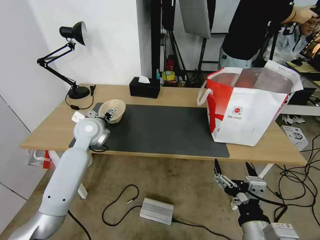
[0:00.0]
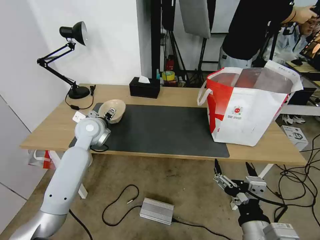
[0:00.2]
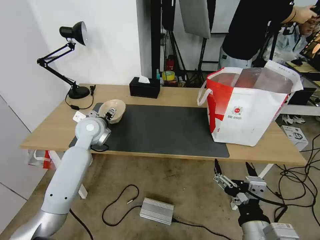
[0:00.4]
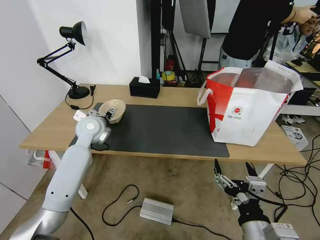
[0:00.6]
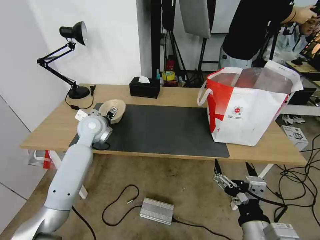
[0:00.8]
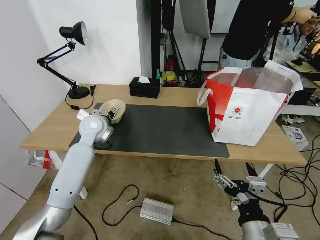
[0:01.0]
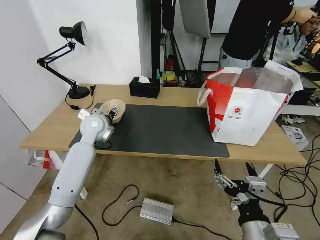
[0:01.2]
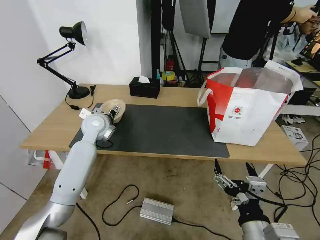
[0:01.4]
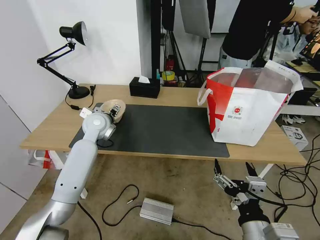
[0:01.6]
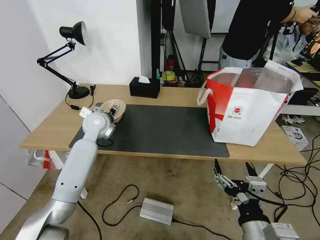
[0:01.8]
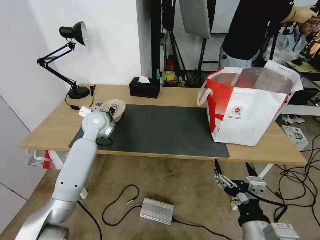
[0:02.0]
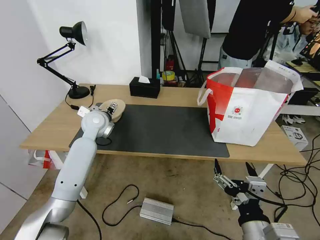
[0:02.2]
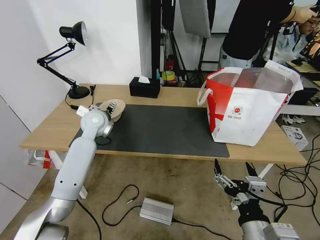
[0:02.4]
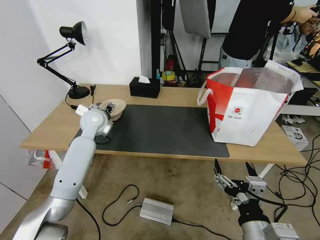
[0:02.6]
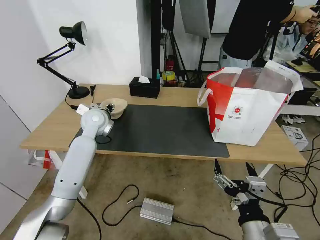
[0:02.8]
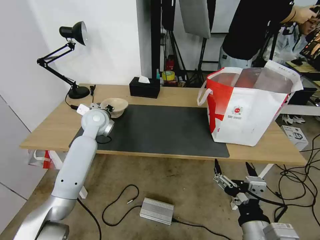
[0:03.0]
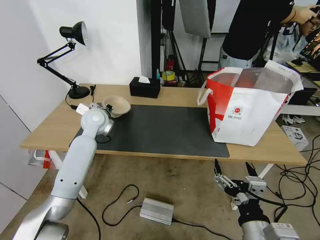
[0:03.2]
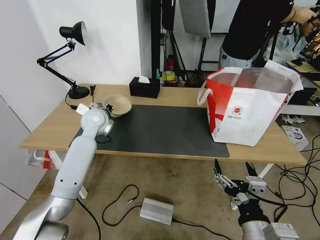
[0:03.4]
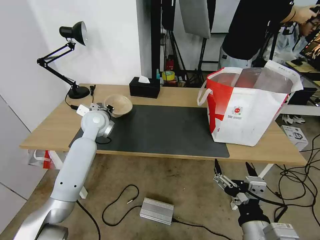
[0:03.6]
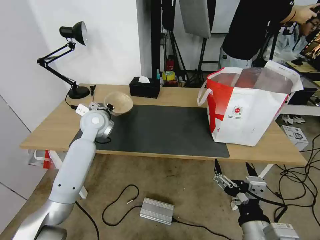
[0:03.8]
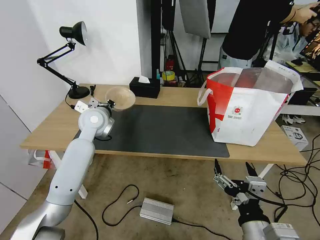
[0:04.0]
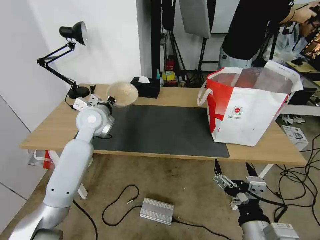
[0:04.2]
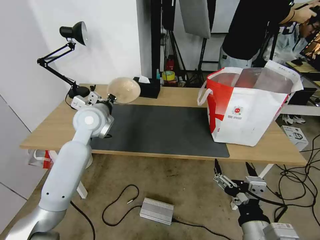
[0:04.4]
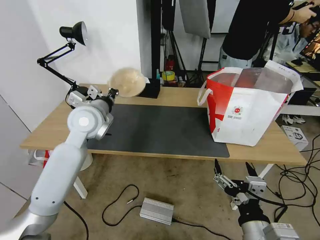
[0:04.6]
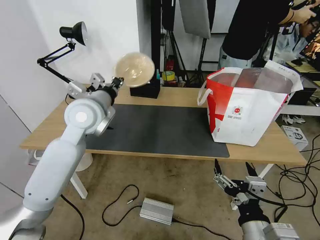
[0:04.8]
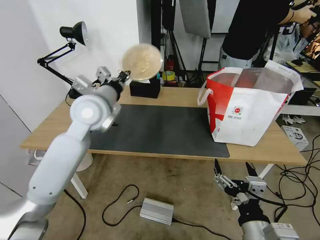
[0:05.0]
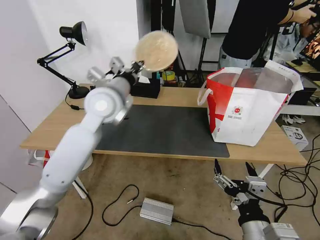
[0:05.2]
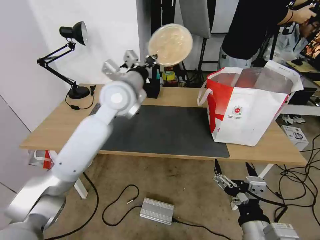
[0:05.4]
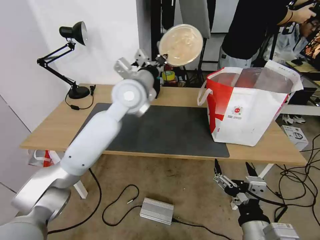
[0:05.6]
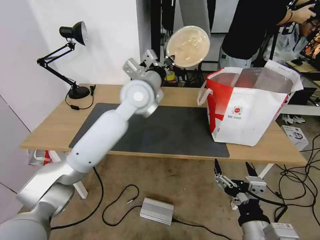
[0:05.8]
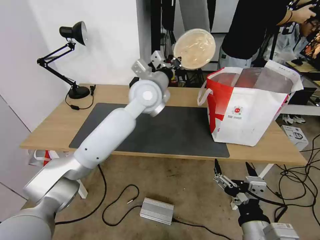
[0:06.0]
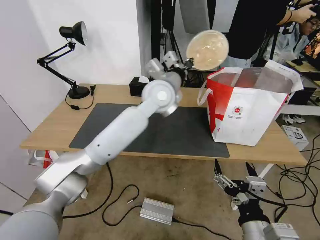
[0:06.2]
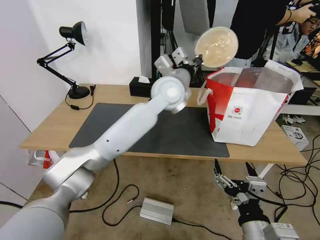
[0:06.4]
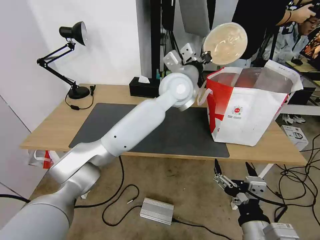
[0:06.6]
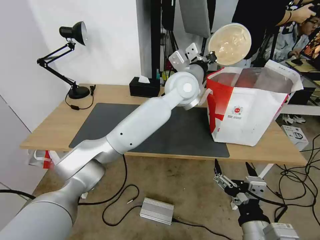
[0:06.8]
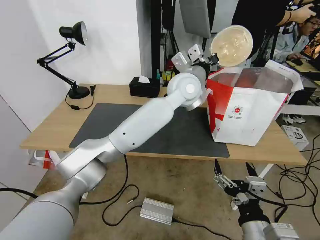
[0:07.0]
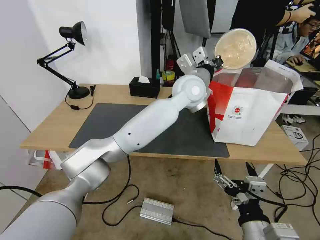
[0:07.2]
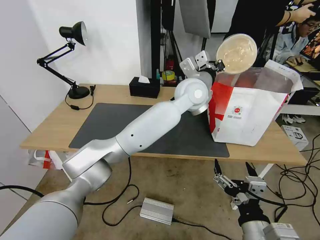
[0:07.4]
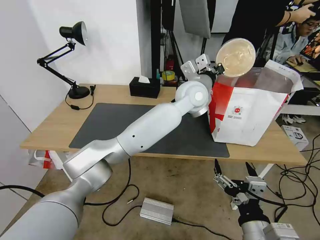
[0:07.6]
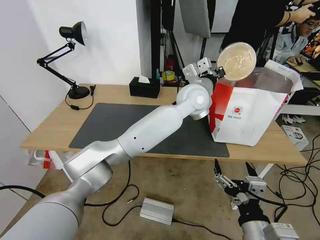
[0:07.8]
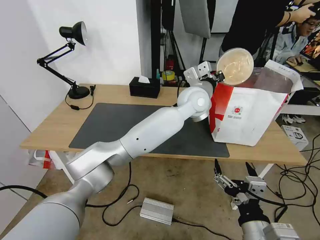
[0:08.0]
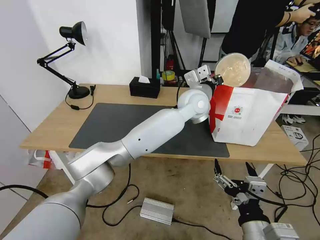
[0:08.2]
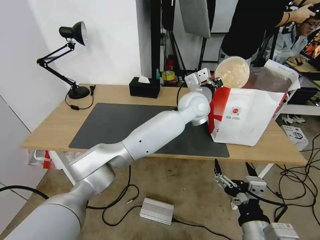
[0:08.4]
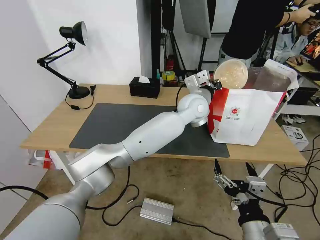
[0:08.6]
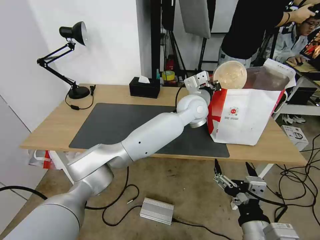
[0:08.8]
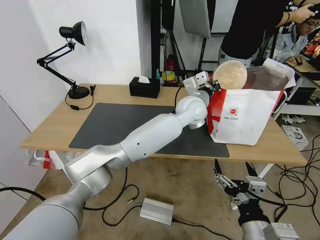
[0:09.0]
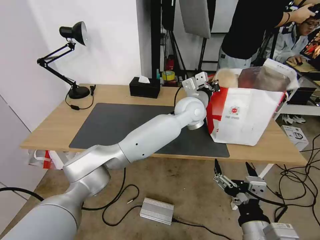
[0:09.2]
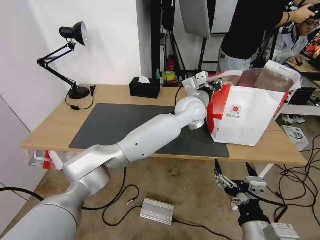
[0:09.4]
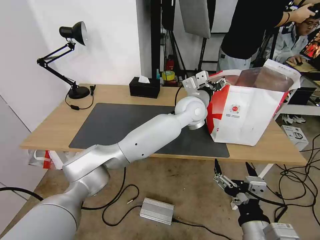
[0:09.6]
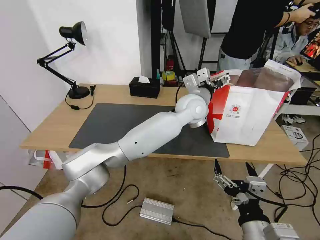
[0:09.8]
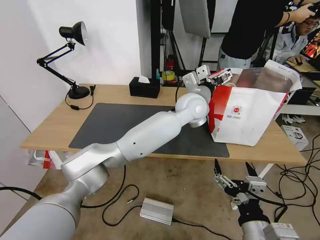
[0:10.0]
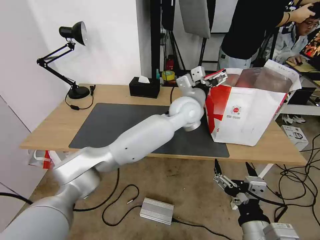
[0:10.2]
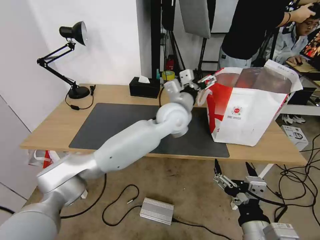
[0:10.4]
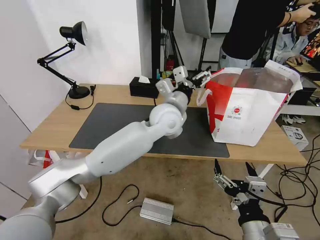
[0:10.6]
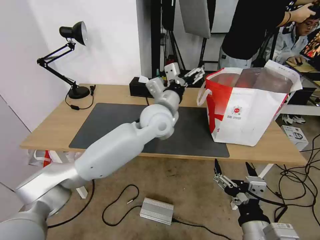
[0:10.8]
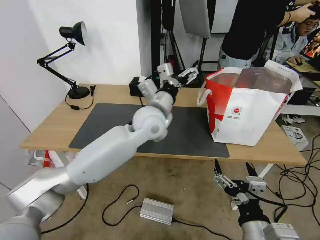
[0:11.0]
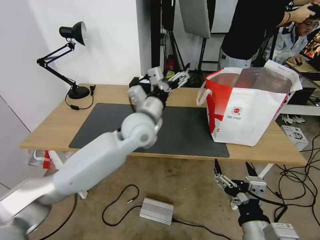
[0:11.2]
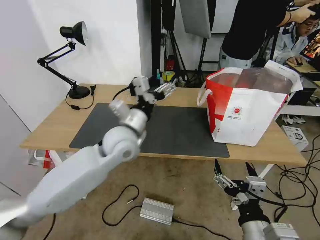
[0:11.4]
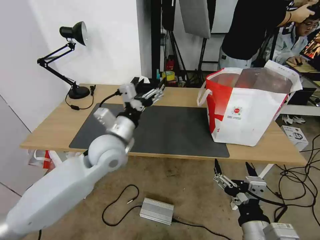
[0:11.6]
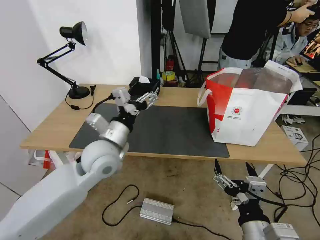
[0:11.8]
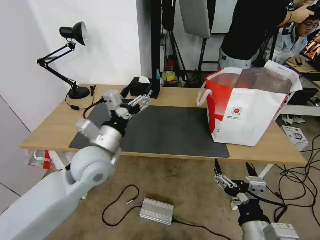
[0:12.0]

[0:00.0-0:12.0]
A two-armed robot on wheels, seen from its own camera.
Task of the whole recording: Pick up the trash from the table and place it into the takeout bag.
0:00.0 to 0:01.6: The grippers move only a little.
0:01.6 to 0:03.0: The left gripper closes.
0:03.0 to 0:04.4: The left gripper shifts approximately 10 cm backward and upward.
0:04.4 to 0:06.0: The left gripper is displaced to the right by approximately 15 cm.
0:06.0 to 0:07.6: The left gripper travels to the right by about 15 cm.
0:07.6 to 0:09.0: The left gripper goes approximately 5 cm downward.
0:09.0 to 0:10.4: The left gripper moves to the left, approximately 5 cm, and opens up.
0:10.4 to 0:12.0: The left gripper heads to the left and backward, covering about 25 cm.

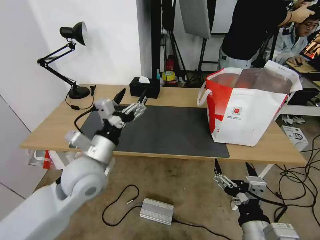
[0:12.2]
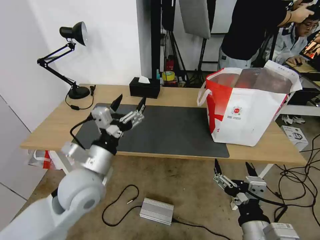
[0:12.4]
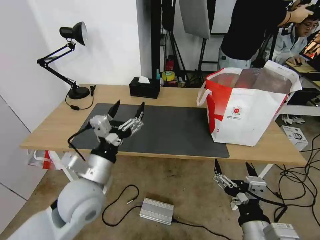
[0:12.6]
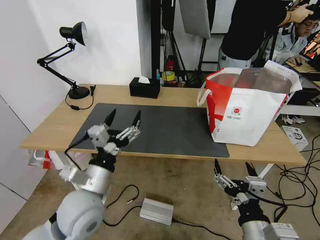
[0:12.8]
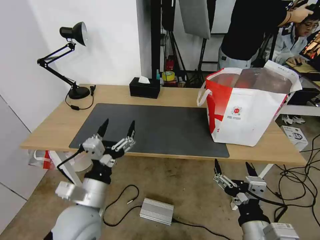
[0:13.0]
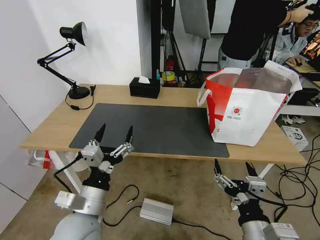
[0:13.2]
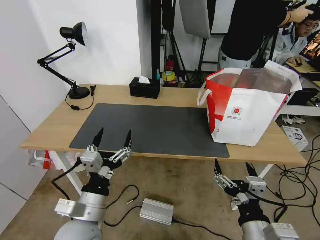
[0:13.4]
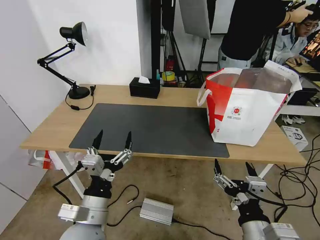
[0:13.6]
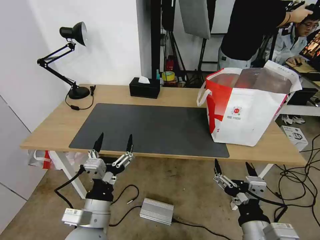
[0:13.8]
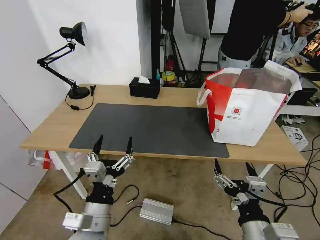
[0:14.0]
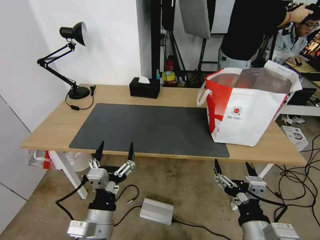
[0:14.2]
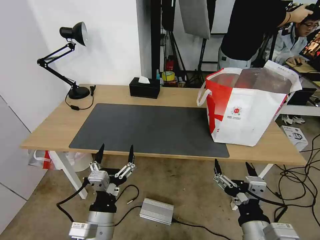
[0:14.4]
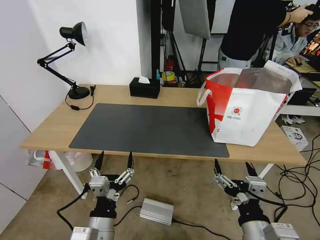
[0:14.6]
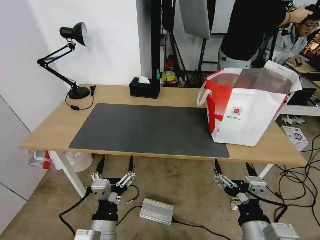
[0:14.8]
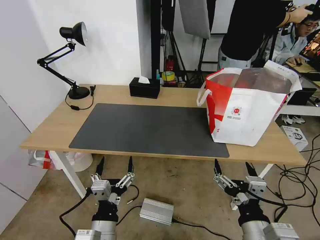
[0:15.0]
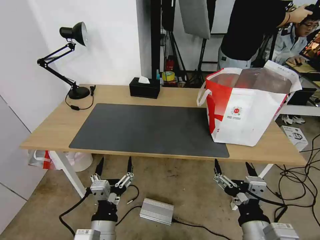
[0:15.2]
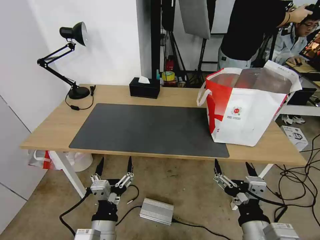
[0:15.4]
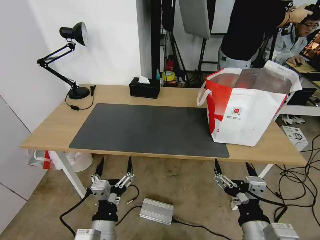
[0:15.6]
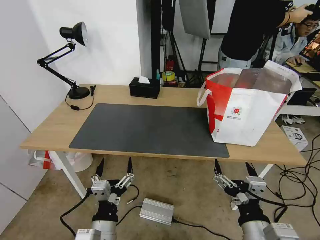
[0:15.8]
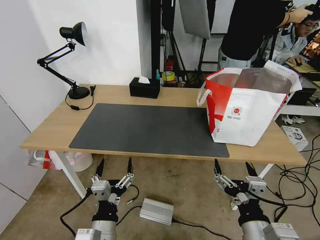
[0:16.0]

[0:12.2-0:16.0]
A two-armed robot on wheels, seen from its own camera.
Task of the whole recording: Pick up the trash from the table and place it into the takeout bag.
0:12.2 to 0:13.4: The left gripper moves backward and downward, approximately 15 cm.
0:13.4 to 0:14.8: The left gripper goes roughly 5 cm downward.
0:14.8 to 0:16.0: The two grippers keep their place.

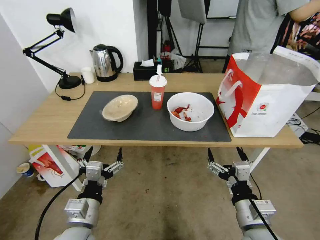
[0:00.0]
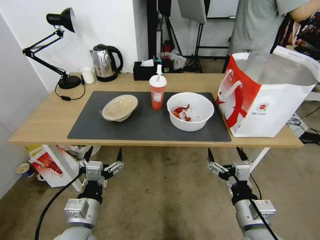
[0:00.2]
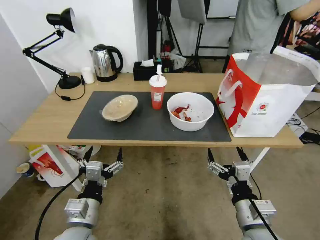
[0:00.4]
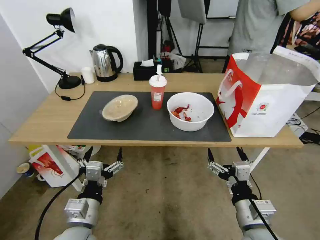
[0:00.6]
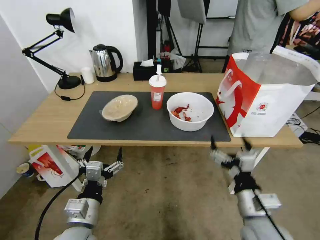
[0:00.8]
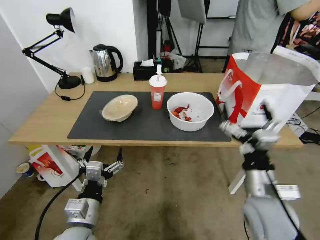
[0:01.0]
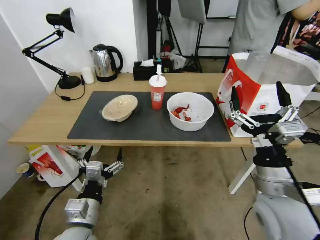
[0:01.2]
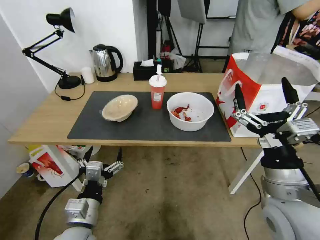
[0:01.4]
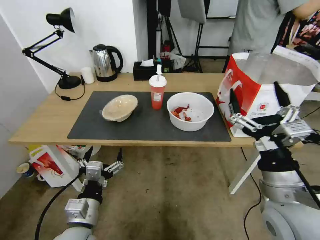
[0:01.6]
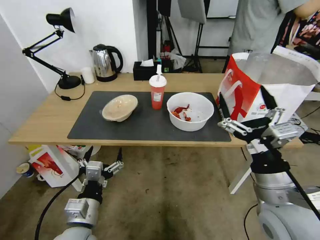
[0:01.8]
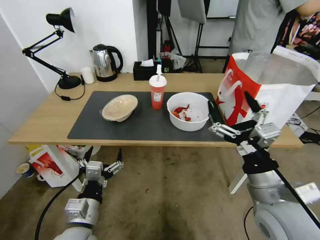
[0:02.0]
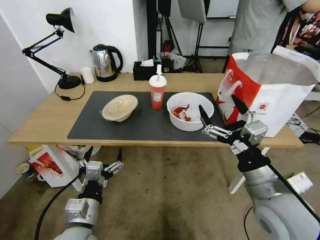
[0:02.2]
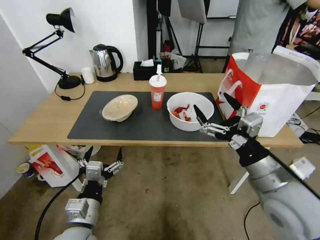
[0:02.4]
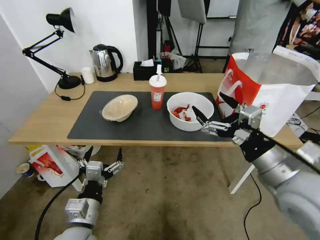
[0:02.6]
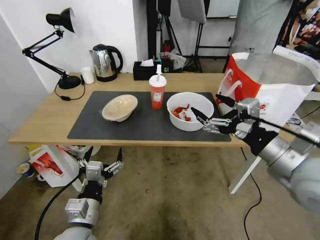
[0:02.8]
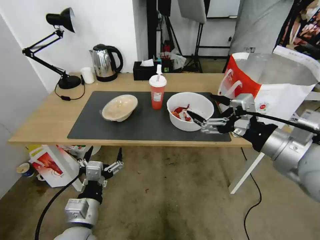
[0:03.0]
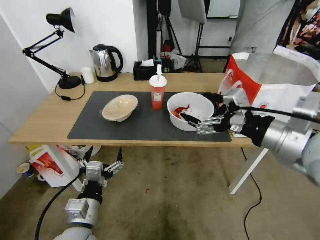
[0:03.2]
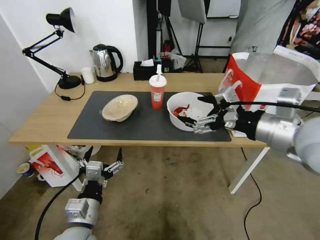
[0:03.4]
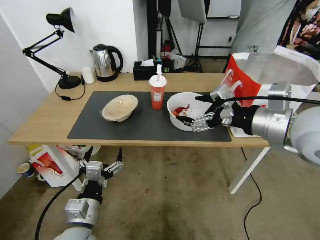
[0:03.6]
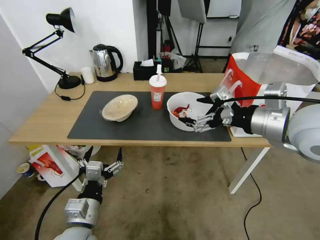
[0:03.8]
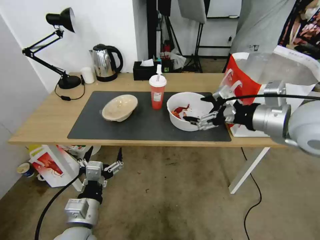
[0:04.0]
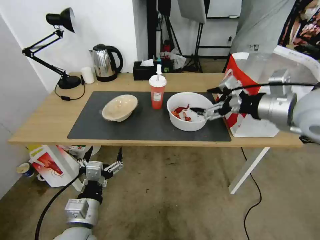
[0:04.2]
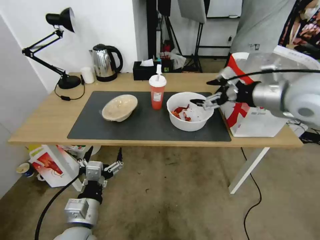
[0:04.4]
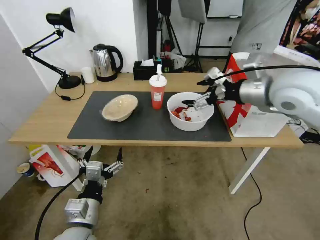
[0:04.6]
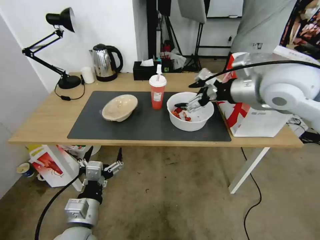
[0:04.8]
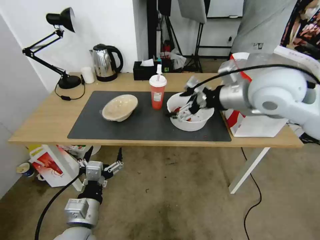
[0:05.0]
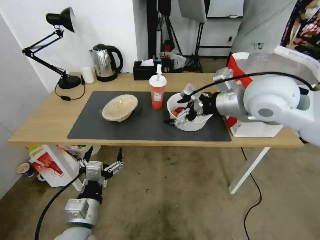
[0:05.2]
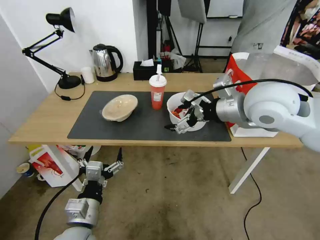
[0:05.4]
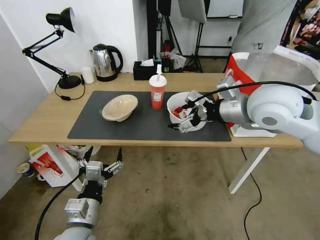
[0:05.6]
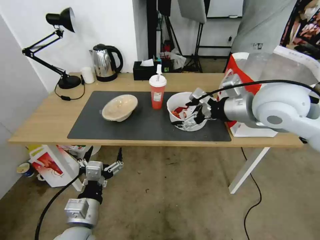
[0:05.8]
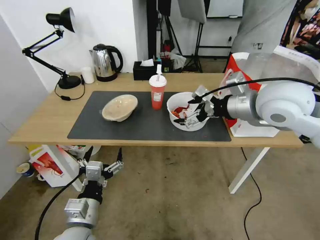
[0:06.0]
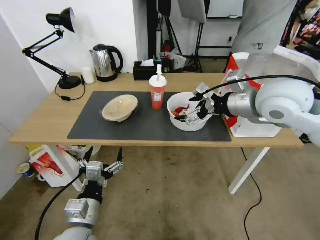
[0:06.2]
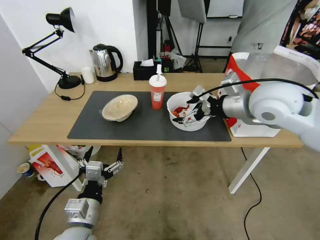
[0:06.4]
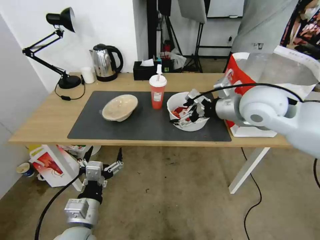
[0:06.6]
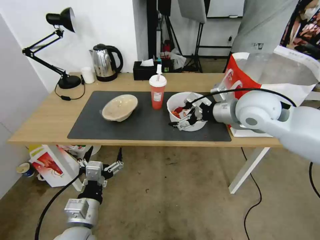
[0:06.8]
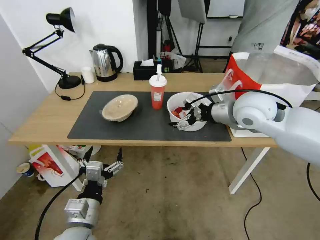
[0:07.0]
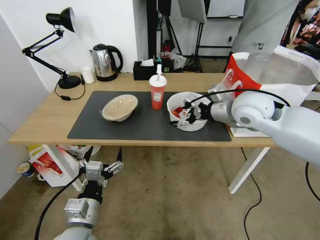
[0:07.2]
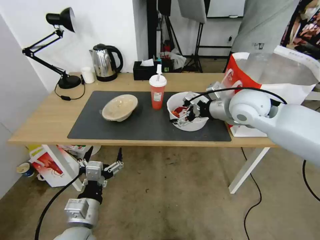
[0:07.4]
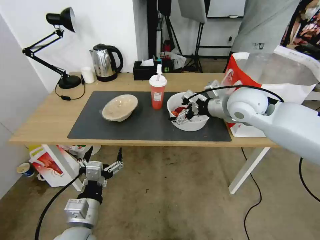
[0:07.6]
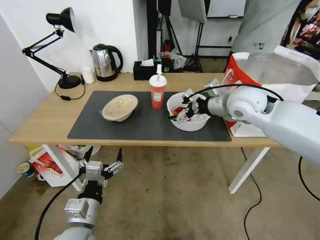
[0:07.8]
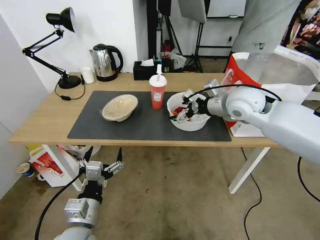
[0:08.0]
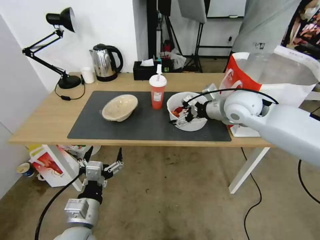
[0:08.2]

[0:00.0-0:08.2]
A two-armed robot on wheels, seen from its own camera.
Task of the whole recording: Pick up the trash from the table and place it into the takeout bag.
0:01.6 to 0:03.2: The right gripper is displaced upward and forward by about 15 cm.
0:03.2 to 0:05.0: The right gripper heads forward, covering about 15 cm.
0:05.0 to 0:06.6: The right gripper shifts some 5 cm downward.
0:06.6 to 0:08.2: The right gripper heads forward, covering some 5 cm.
